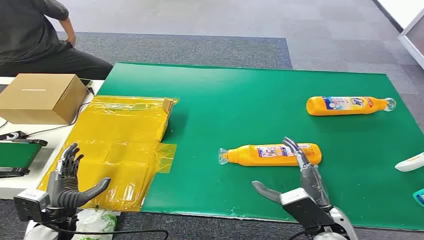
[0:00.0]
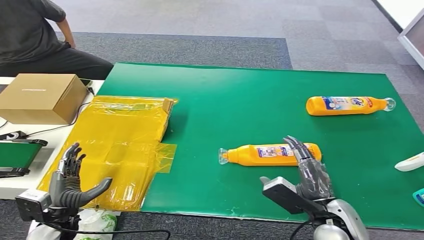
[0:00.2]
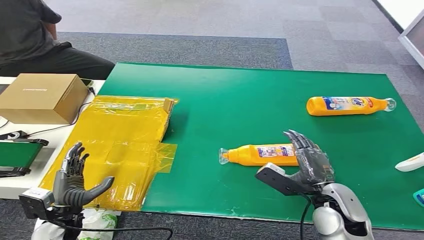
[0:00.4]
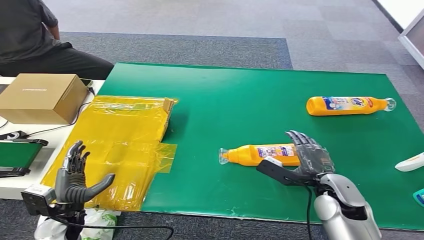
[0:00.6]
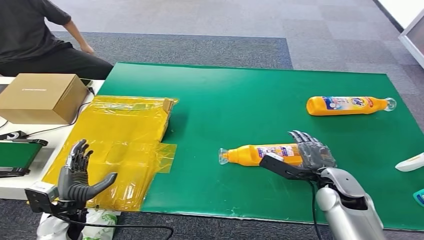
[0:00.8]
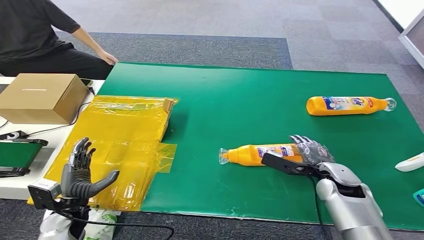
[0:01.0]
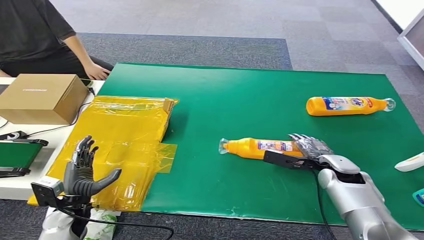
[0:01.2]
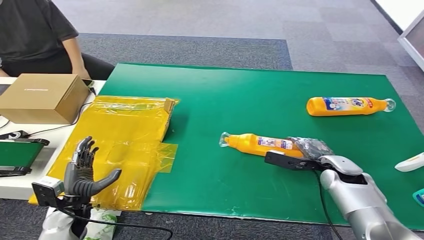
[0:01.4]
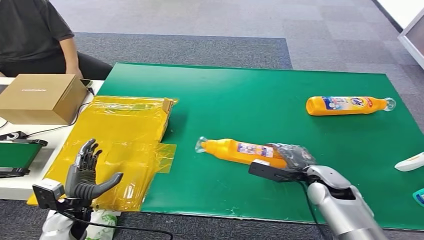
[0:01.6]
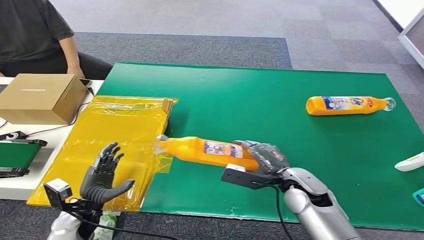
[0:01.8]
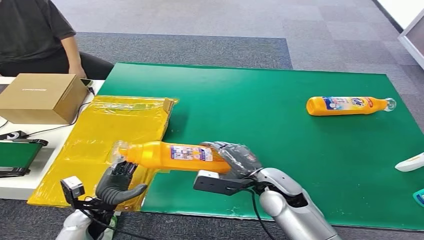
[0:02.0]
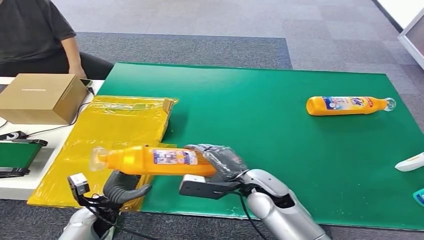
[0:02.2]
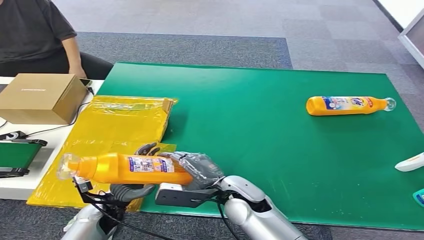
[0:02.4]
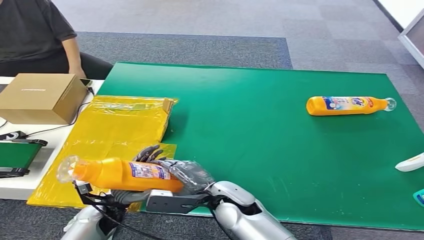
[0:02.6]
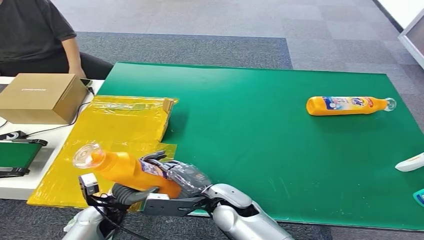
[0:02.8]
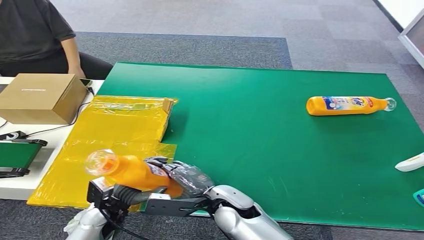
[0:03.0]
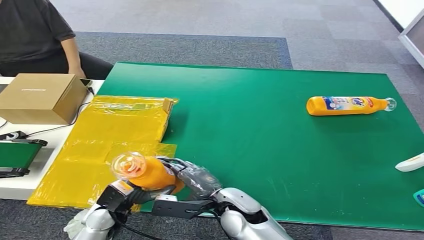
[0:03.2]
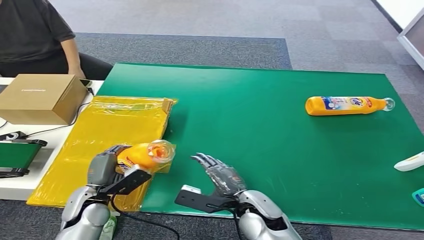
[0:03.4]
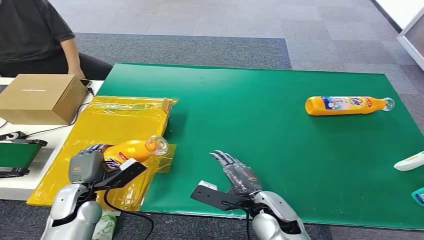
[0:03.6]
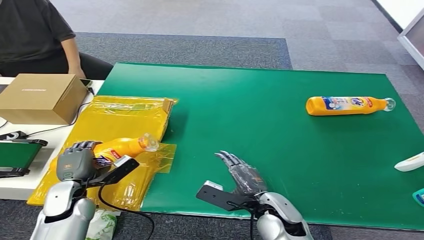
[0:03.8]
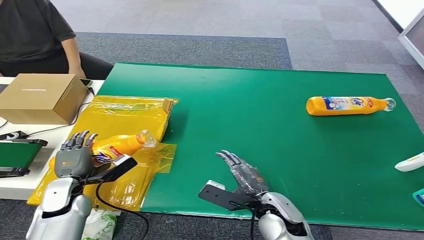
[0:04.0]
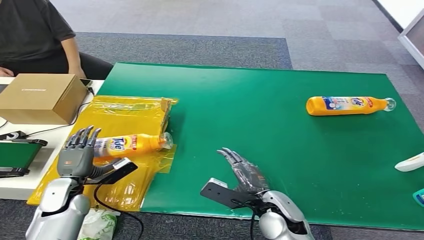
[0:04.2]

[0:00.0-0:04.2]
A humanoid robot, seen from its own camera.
Step, 0:00.0 to 0:01.8: Pick up the bottle from the table.
Step, 0:02.0 to 0:04.2: Turn the bottle to the front side.
0:02.8 to 0:04.2: The right hand goes some 10 cm to the right, while the left hand heads to the left, covering roughly 10 cm.
